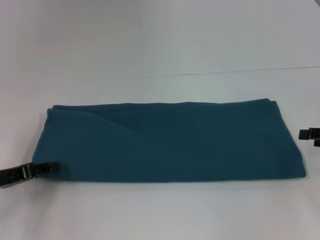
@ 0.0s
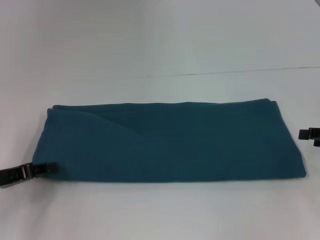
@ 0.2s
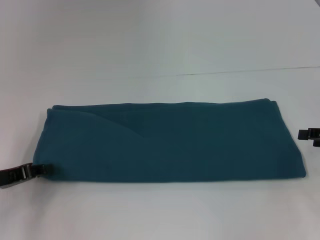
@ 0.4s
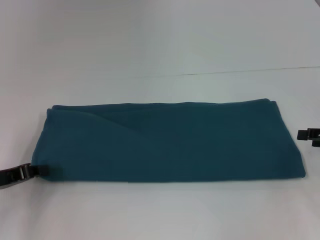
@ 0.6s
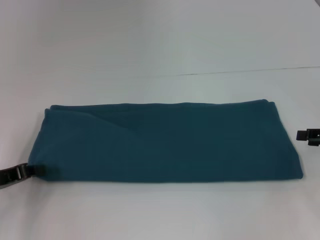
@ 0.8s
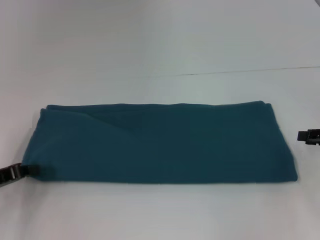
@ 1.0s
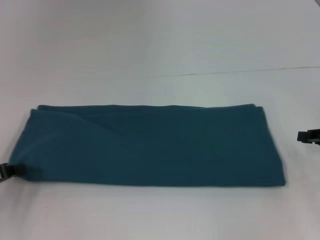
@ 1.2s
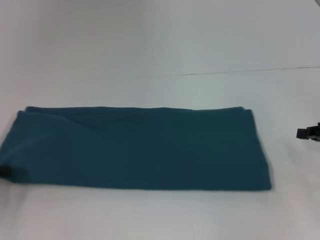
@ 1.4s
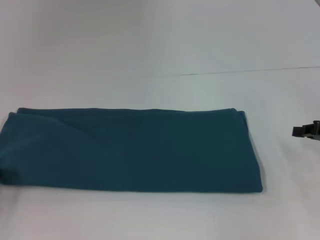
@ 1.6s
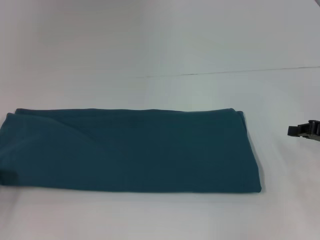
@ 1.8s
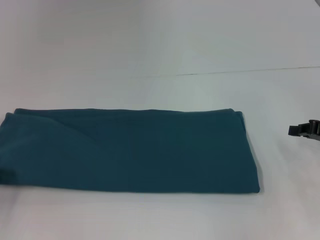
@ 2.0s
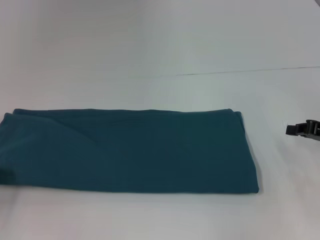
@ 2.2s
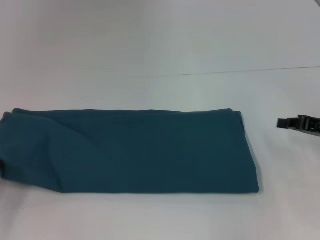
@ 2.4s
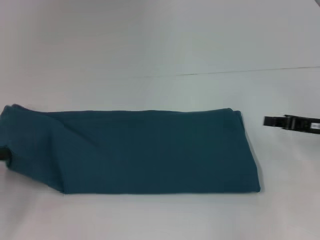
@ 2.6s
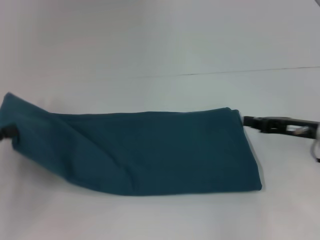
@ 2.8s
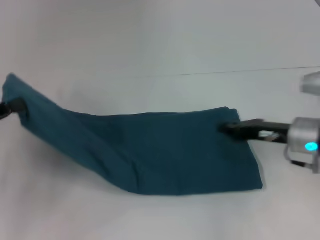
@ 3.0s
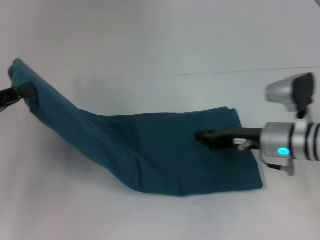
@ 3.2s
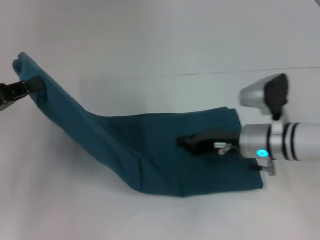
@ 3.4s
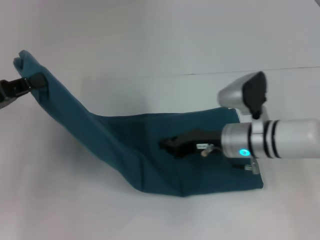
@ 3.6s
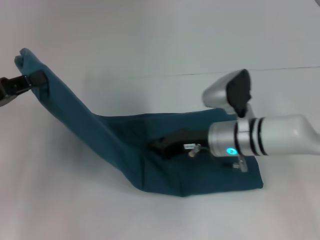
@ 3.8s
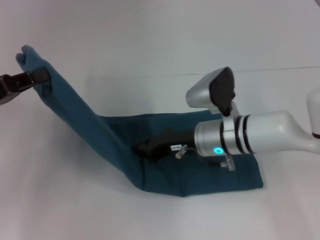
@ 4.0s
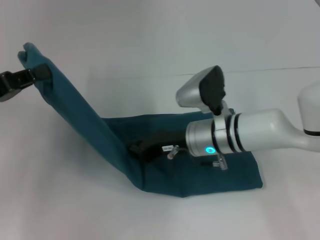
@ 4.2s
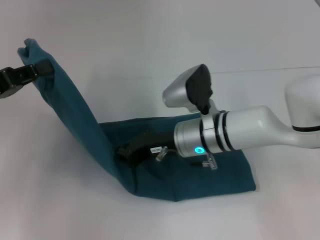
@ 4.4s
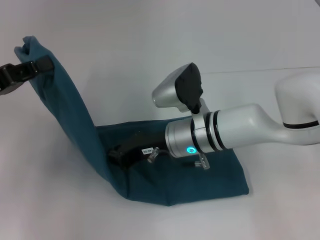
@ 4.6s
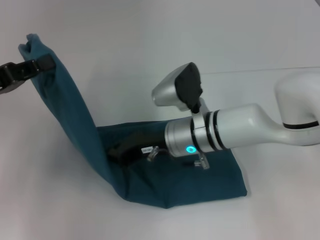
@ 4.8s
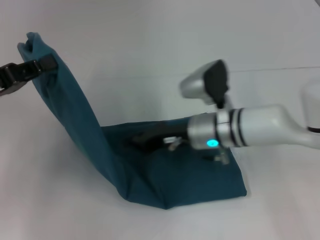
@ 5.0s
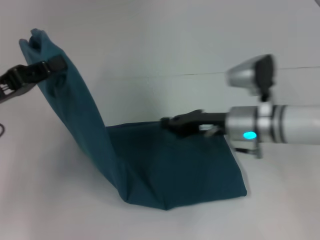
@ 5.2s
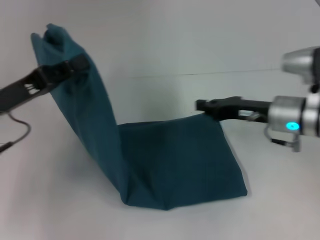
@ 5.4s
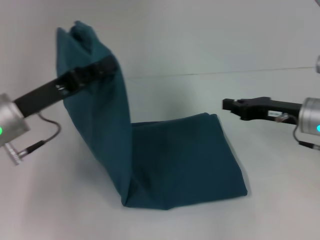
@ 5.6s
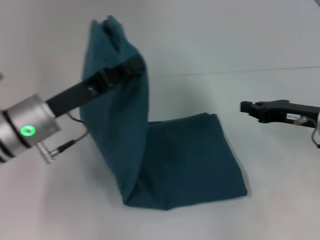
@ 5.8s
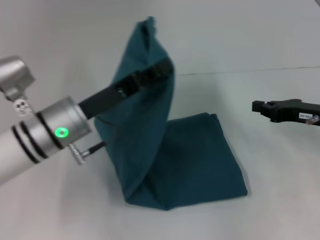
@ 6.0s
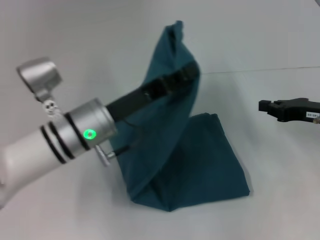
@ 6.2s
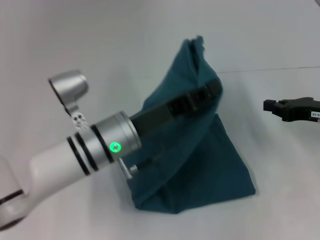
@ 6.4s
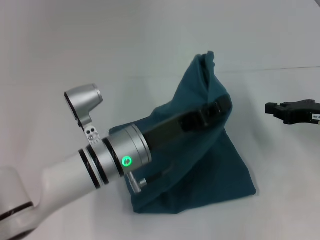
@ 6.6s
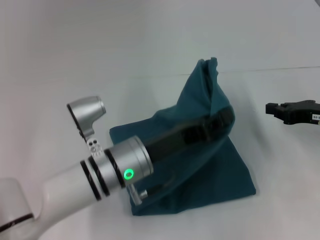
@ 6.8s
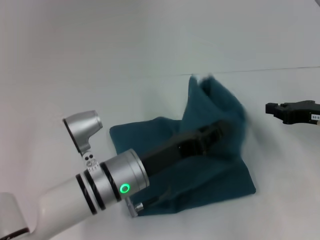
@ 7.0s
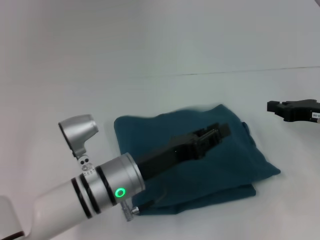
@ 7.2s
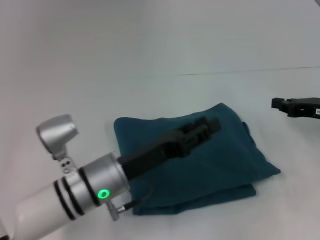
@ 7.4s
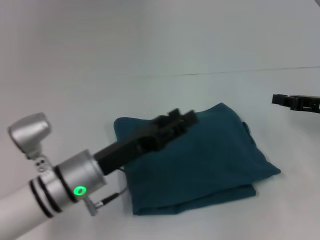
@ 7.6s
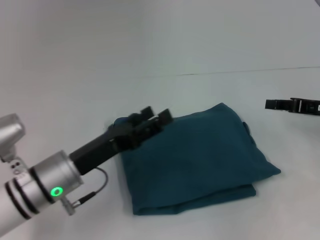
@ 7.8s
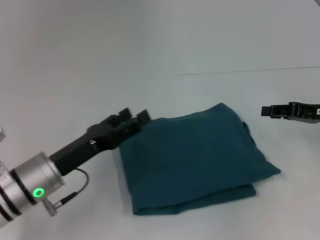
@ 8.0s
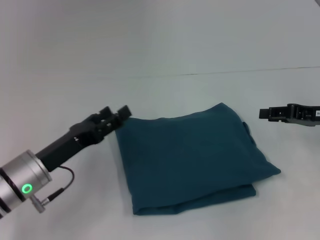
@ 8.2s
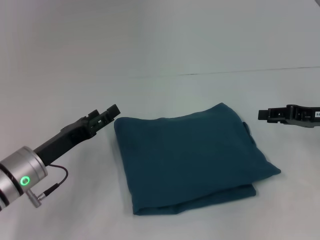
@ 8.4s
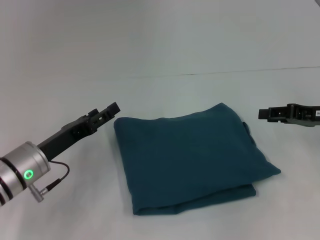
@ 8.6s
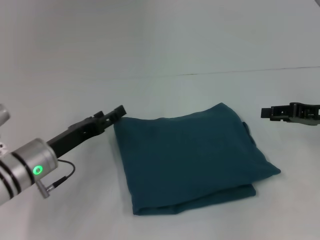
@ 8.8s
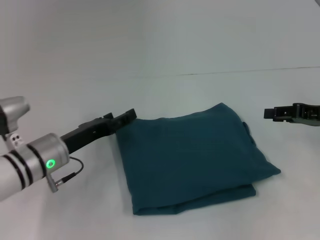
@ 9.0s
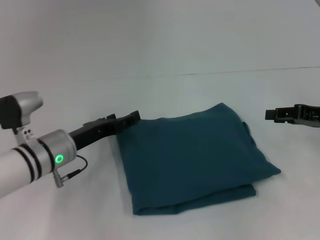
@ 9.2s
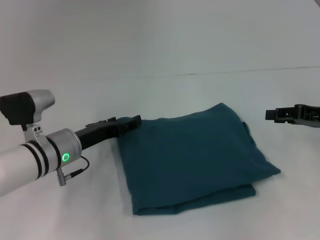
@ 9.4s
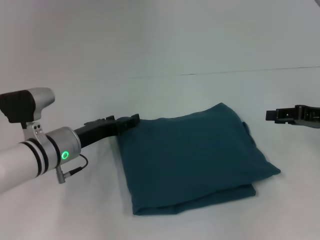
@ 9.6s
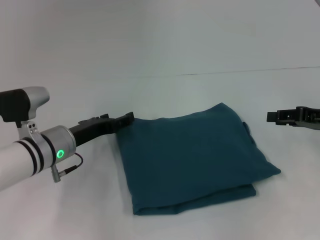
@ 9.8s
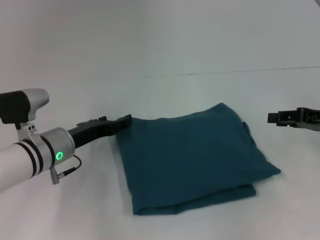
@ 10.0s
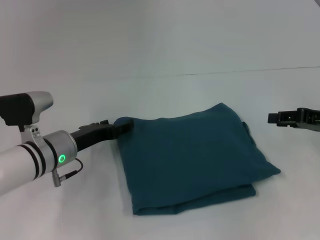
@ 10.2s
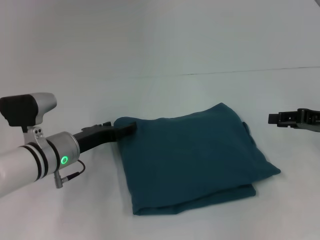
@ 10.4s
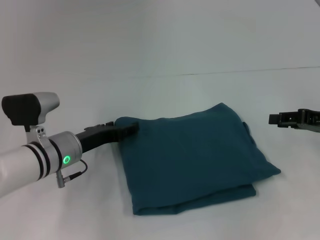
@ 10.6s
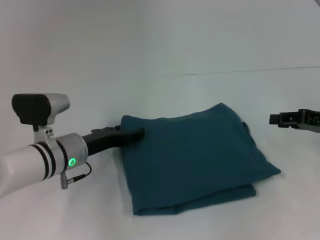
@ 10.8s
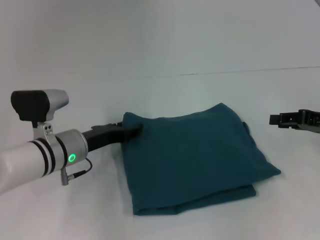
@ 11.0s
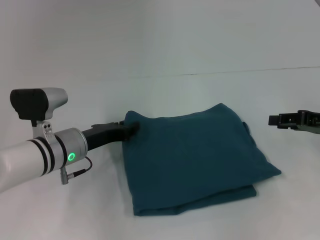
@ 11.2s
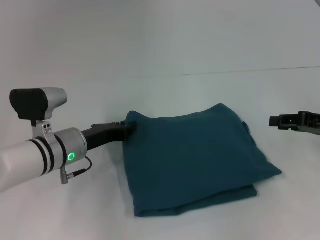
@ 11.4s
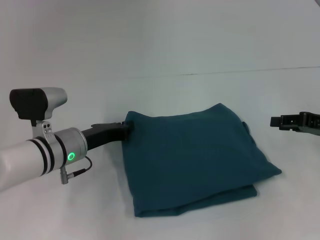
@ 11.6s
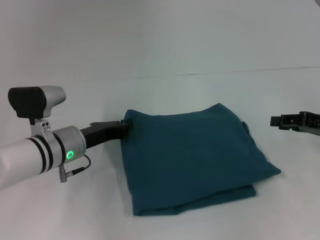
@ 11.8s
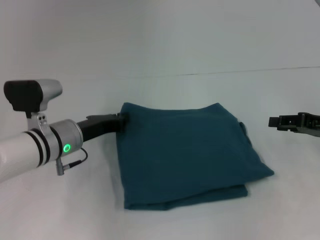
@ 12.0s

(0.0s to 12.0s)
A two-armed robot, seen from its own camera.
Step, 0.0s - 5.0s: Press the middle of the clothes with your right hand.
Step, 5.2s - 7.2s: Fold the clothes to the left.
0.0s - 1.6s: The right gripper closes its fingers. The left gripper goes approximately 5 cm to the left, and closes.
1.6s - 3.0s: The right gripper heads to the left, covering roughly 10 cm, while the left gripper is displaced upward by some 5 cm.
3.0s - 4.4s: The right gripper moves to the left, roughly 20 cm; the left gripper changes place by approximately 5 cm.
4.4s - 6.0s: Both grippers move to the right, approximately 20 cm.
6.0s - 7.6s: The left gripper is displaced backward and downward by approximately 5 cm, travels to the right and back again, approximately 10 cm each way, and opens.
7.6s - 9.0s: The left gripper goes some 10 cm to the left and forward, and opens up, while the right gripper opens up.
9.0s - 10.4s: The grippers stay close to where they were, moving slightly.
10.4s - 12.0s: The left gripper closes up.

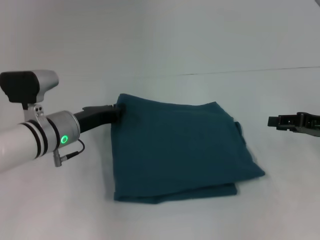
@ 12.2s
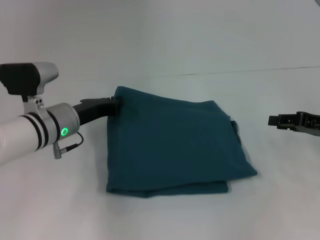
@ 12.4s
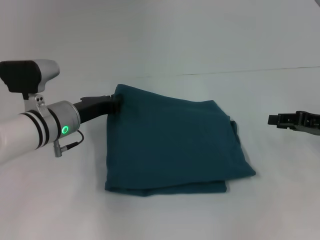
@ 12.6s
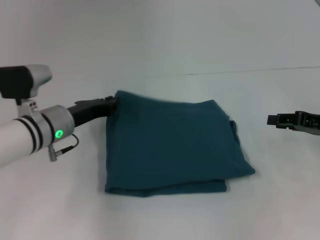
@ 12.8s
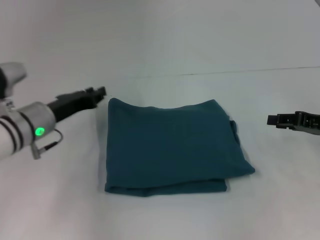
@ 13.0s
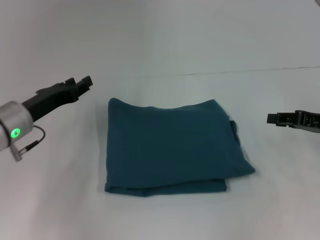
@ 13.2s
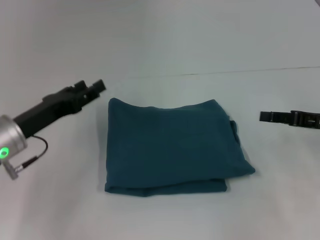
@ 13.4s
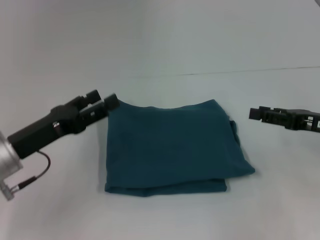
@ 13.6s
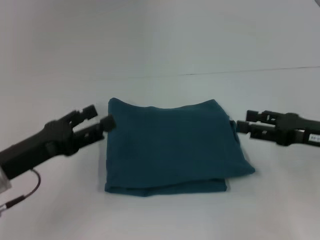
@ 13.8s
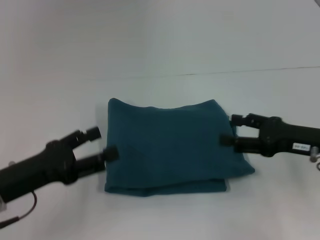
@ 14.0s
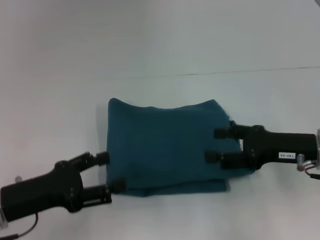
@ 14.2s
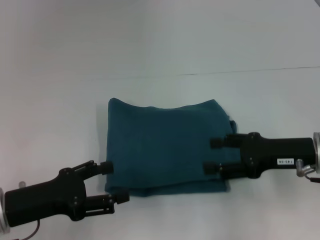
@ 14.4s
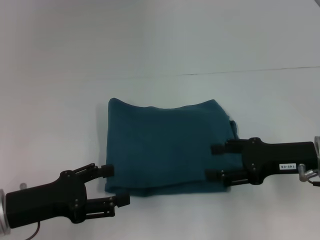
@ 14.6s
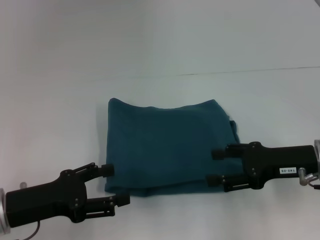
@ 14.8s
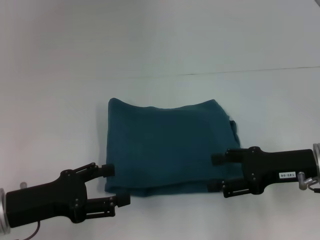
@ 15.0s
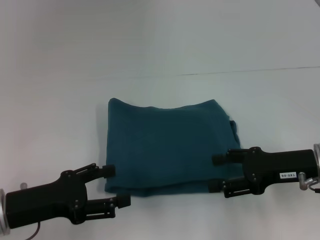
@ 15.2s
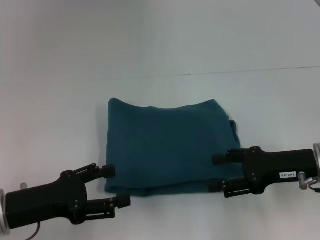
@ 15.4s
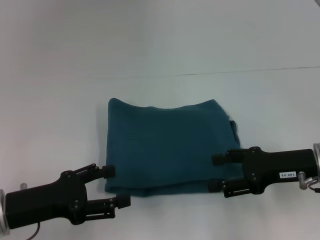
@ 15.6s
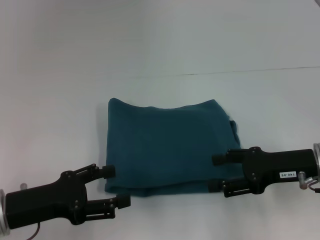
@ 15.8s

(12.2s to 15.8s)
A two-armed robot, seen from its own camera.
12.2s - 14.0s: The left gripper heads backward and to the left, covering approximately 15 cm, and opens up. The right gripper shifts roughly 5 cm to the left, and opens up.
14.0s - 15.8s: The grippers stay close to where they were, moving slightly.

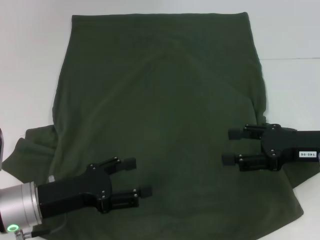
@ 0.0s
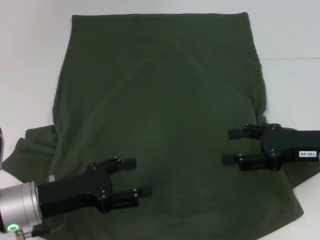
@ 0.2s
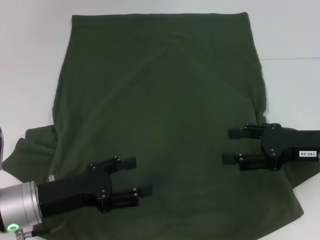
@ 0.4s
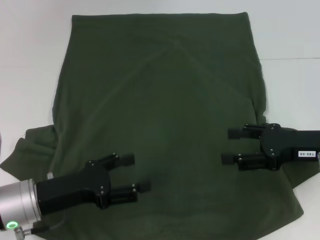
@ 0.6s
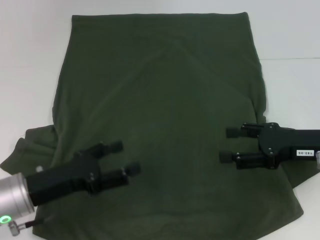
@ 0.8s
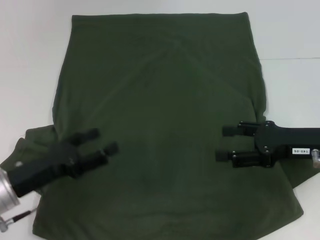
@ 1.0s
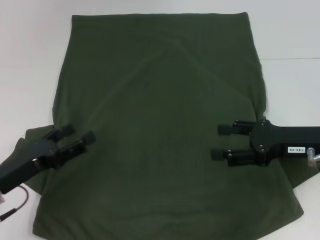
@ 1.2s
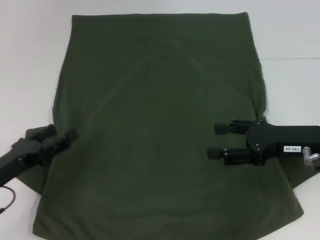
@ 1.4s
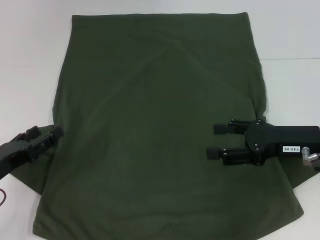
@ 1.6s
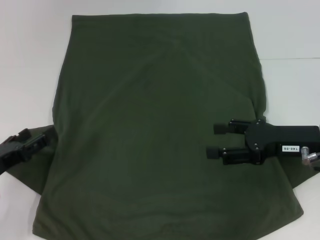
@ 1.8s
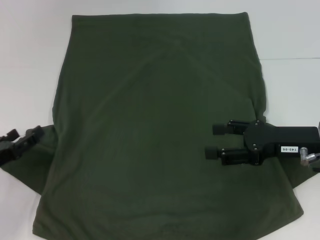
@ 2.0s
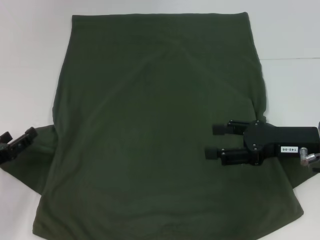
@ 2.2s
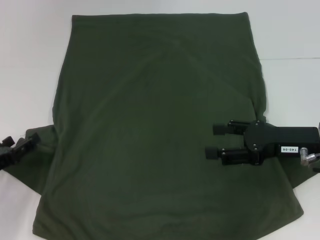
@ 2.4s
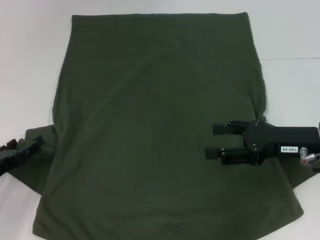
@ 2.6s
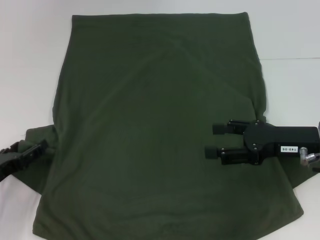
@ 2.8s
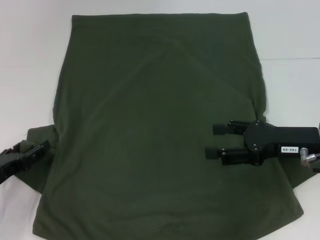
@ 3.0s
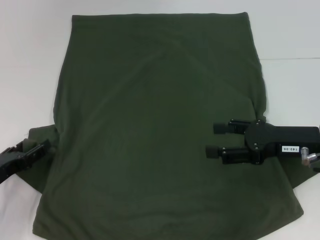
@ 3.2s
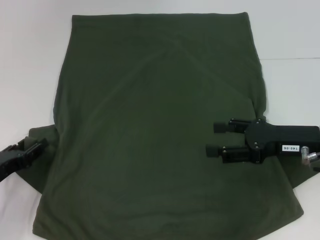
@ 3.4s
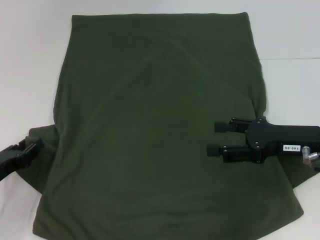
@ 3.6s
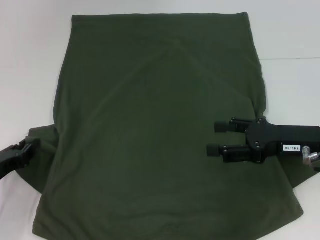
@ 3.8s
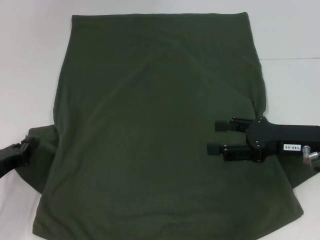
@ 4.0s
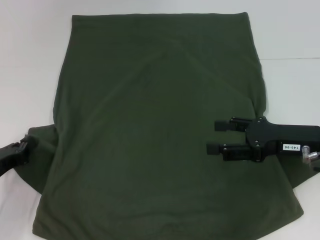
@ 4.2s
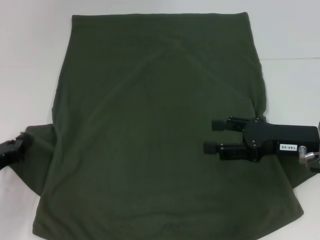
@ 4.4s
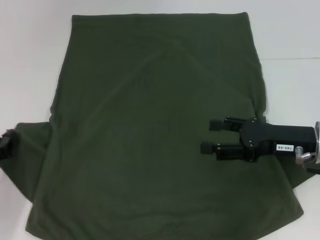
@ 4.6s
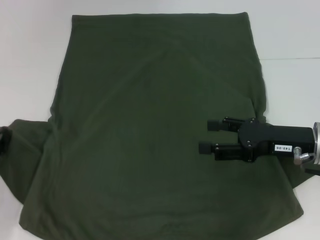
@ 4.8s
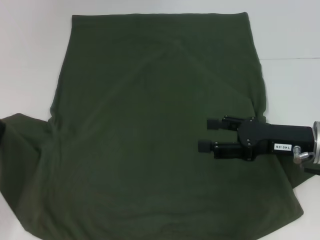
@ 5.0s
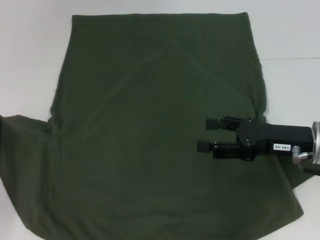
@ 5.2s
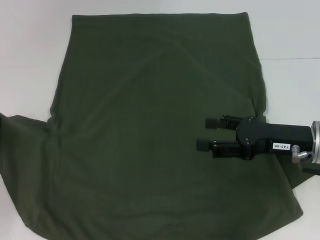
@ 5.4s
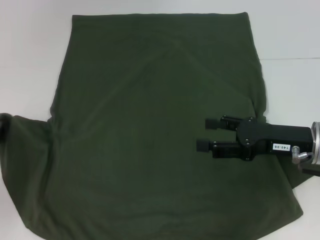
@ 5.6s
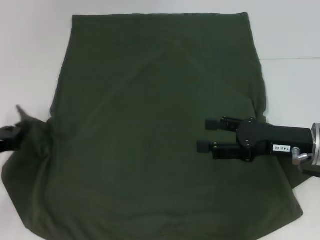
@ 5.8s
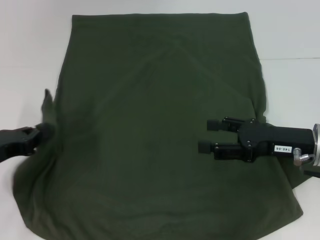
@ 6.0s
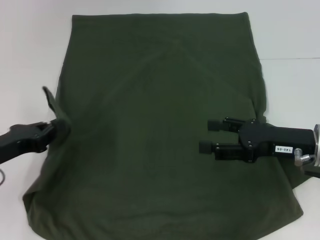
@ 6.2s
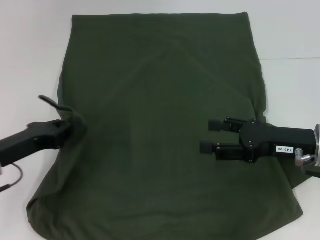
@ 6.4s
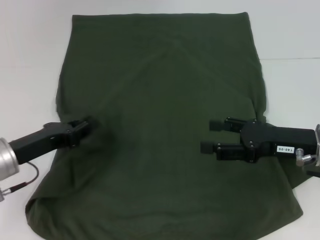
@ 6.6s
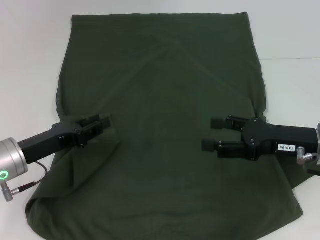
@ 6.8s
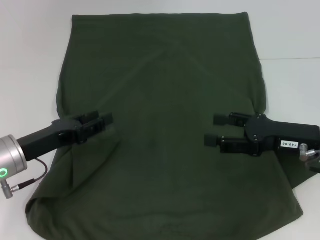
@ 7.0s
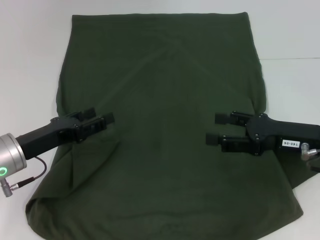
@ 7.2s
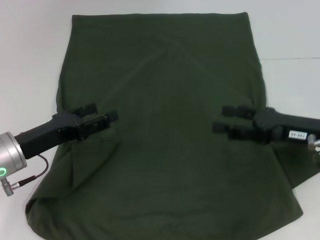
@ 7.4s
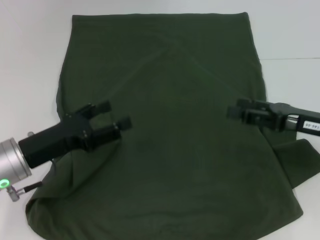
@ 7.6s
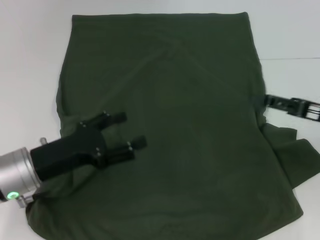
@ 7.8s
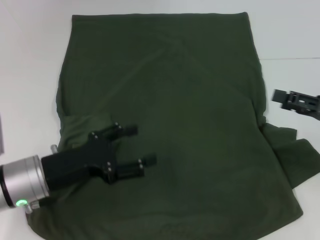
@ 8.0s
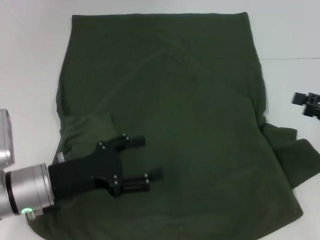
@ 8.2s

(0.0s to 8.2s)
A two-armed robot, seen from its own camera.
Step, 0.0s - 6.6s: Fold the bottom left sleeve with your left hand.
0.0s - 1.6s: The left gripper is displaced to the left by approximately 10 cm.
1.6s - 3.2s: There are only small adjustments of the grippers.
3.2s - 5.0s: The left gripper changes place by roughly 5 cm, and closes up.
5.0s - 6.6s: The left gripper moves to the right, about 10 cm.
6.6s - 8.2s: The left gripper shifts about 5 cm to the right, and opens; the right gripper is displaced to the right by some 10 cm.
